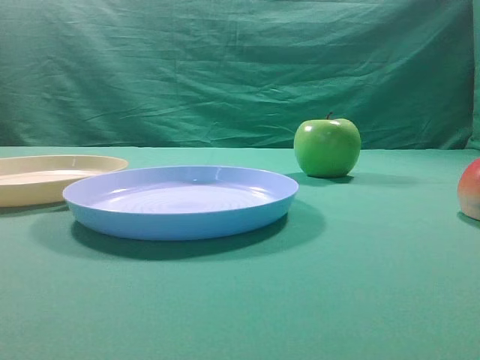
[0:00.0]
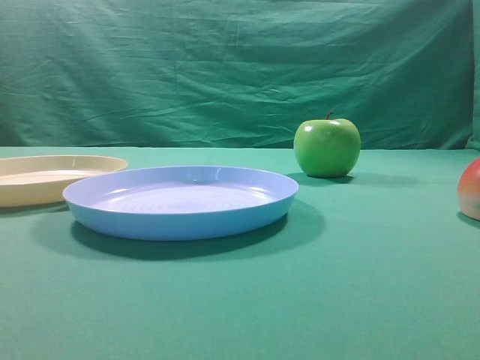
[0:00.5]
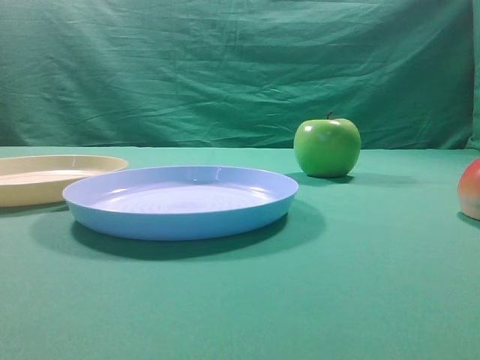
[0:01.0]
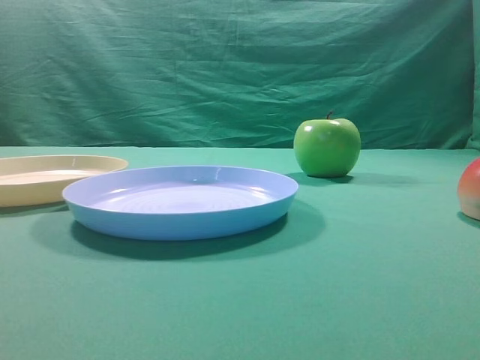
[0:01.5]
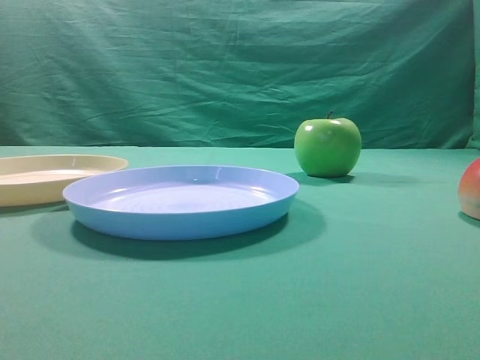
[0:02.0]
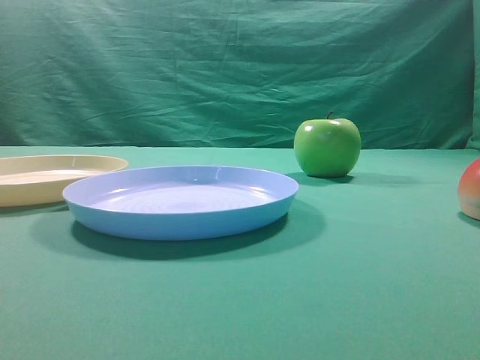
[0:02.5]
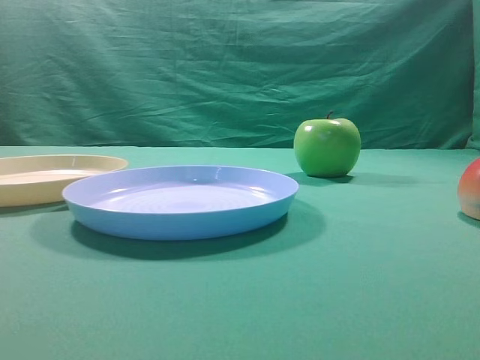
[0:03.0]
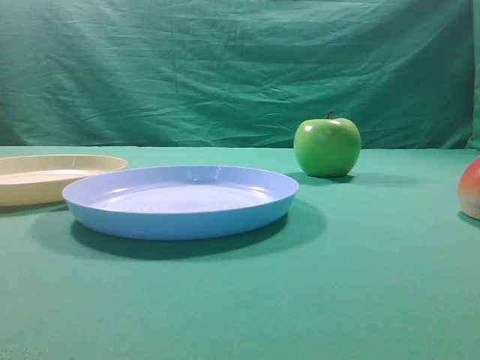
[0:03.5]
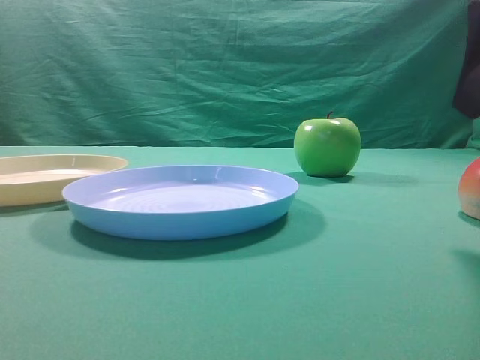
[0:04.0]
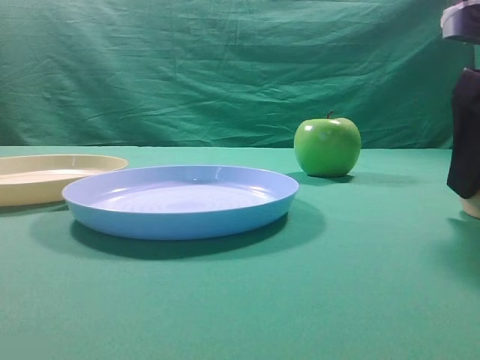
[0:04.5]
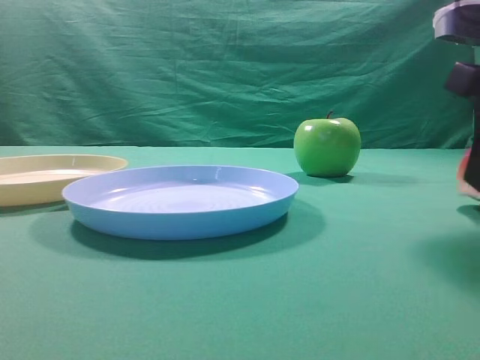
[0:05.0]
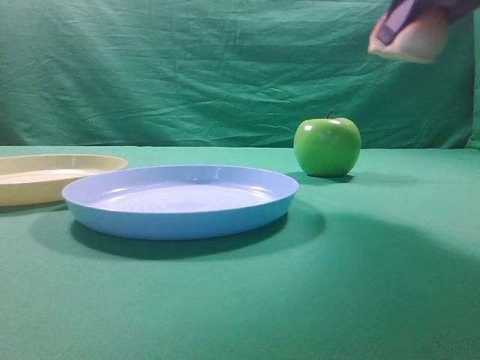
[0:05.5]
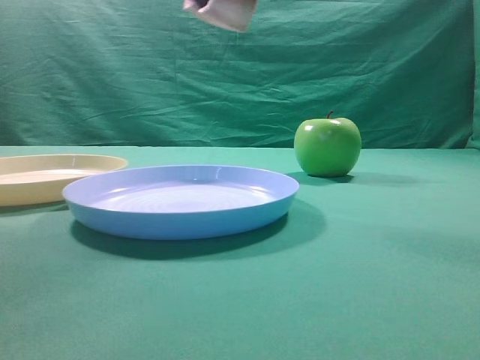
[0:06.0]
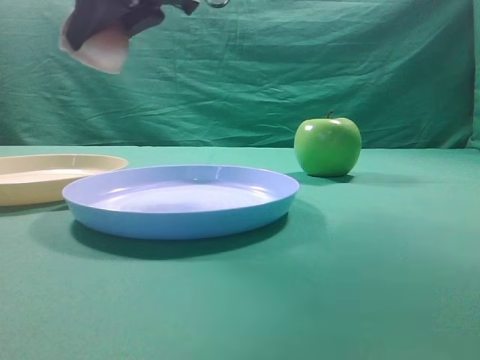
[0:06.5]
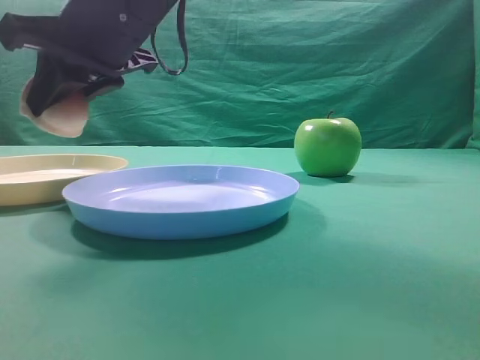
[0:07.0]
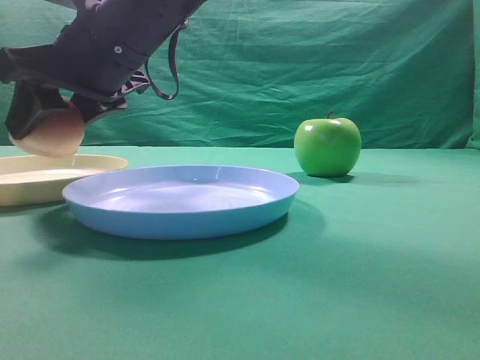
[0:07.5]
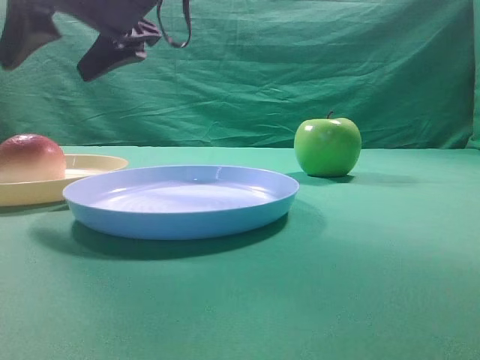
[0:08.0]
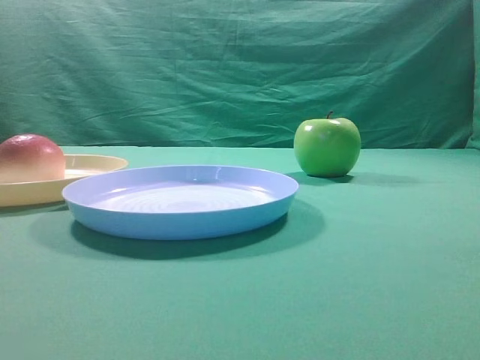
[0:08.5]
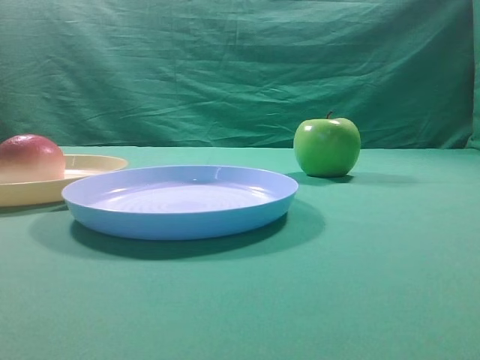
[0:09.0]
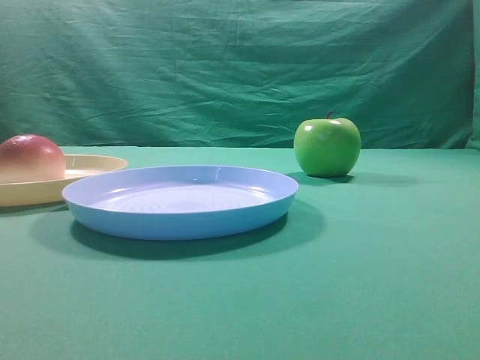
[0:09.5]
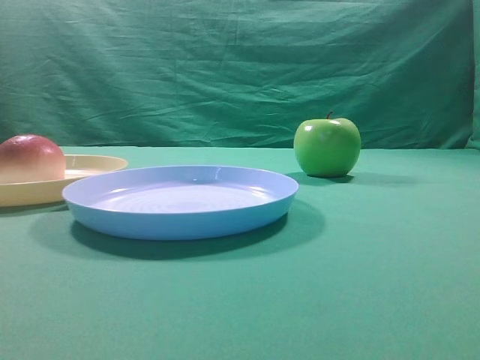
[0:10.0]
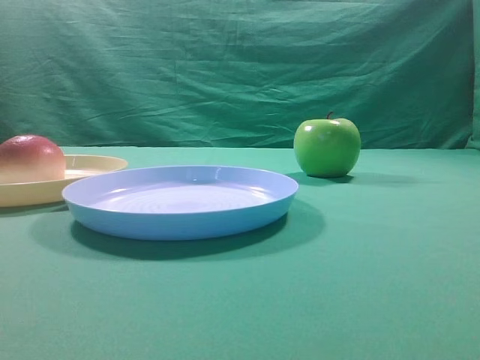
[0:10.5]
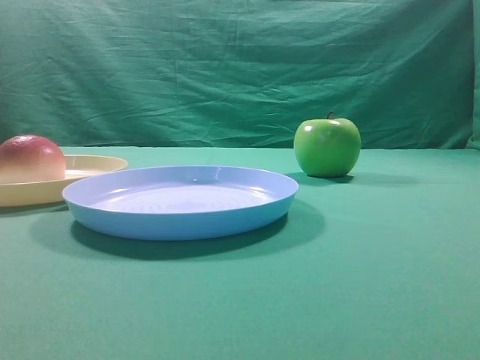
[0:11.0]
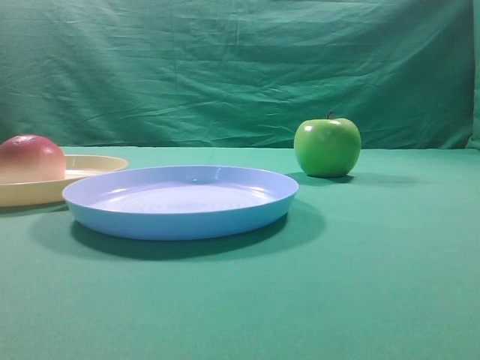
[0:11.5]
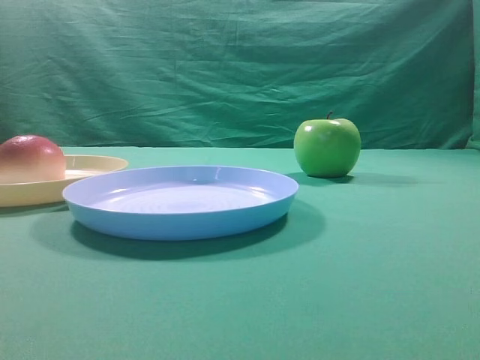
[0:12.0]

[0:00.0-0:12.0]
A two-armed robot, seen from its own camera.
Step, 0:05.5 to 0:07.5: Place the picked object on the yellow plate.

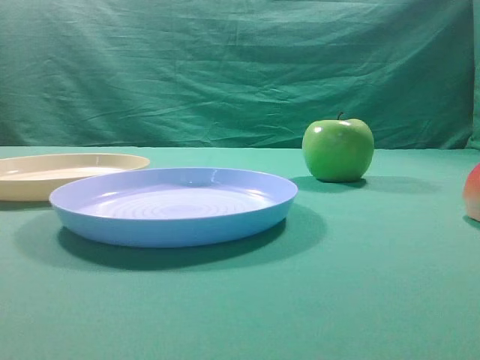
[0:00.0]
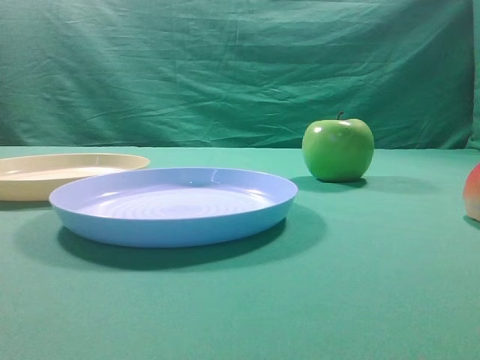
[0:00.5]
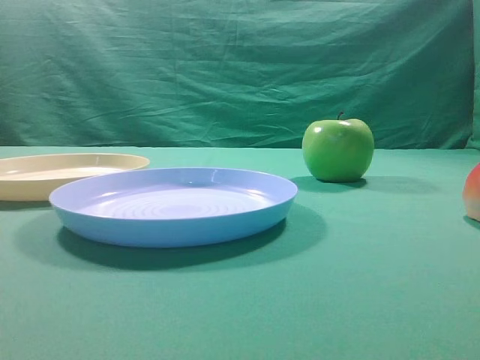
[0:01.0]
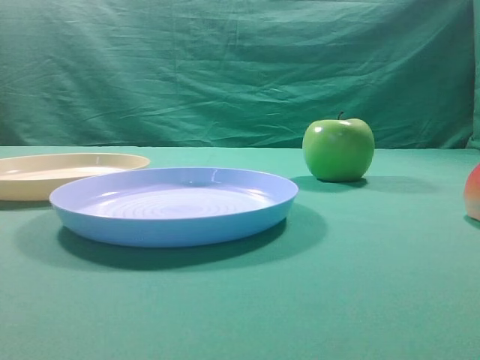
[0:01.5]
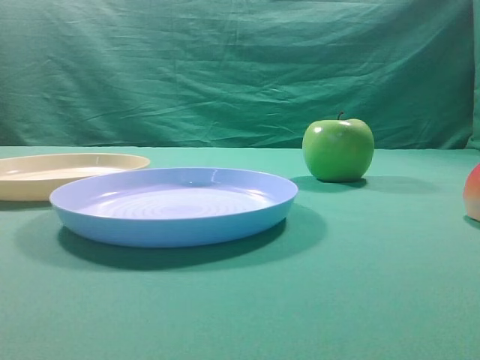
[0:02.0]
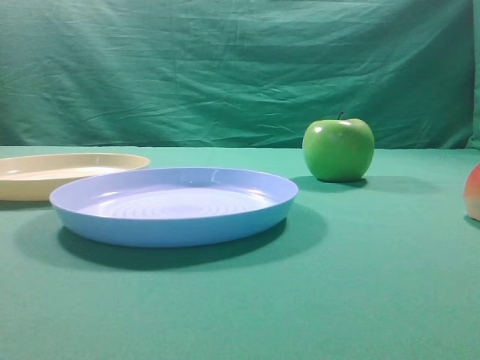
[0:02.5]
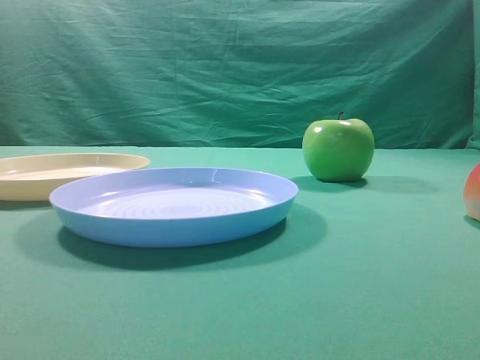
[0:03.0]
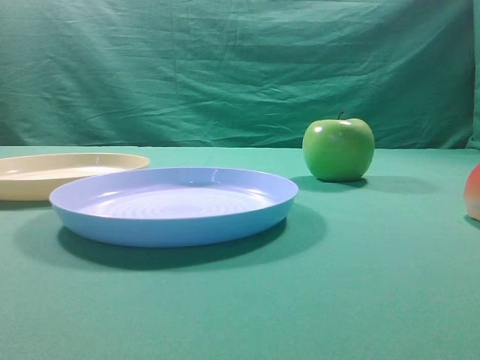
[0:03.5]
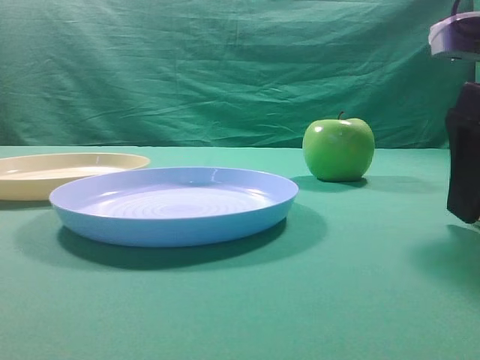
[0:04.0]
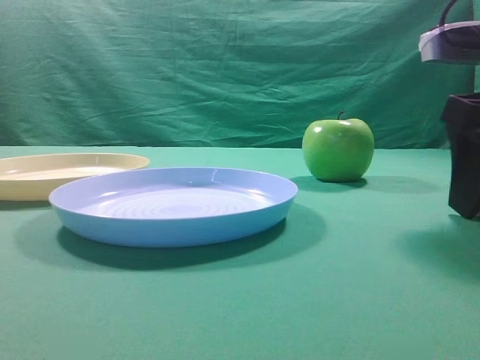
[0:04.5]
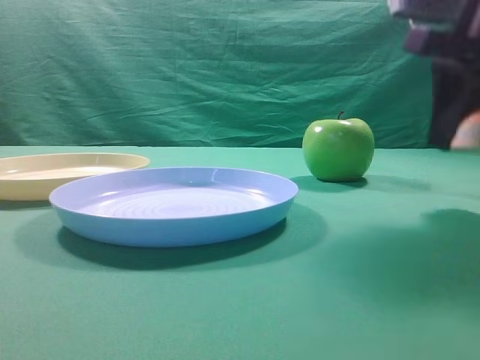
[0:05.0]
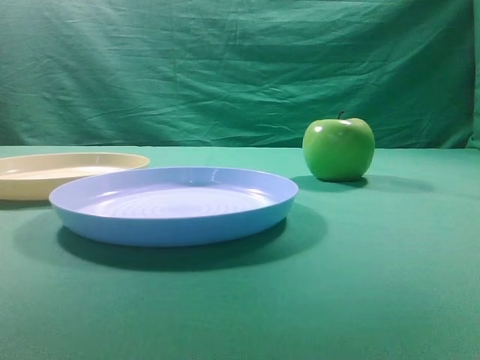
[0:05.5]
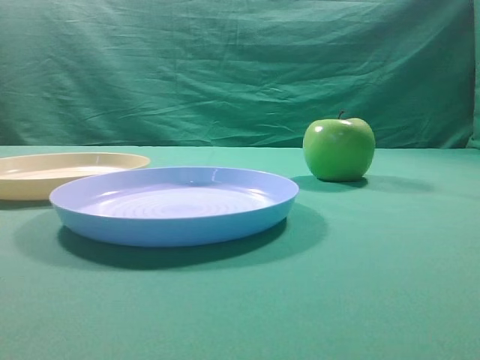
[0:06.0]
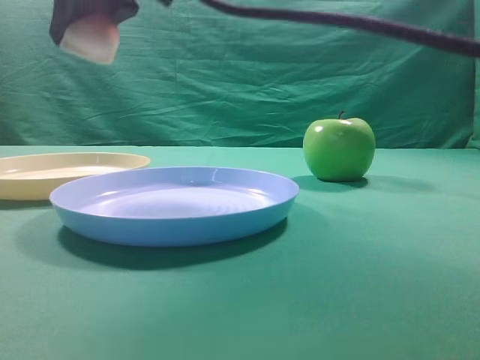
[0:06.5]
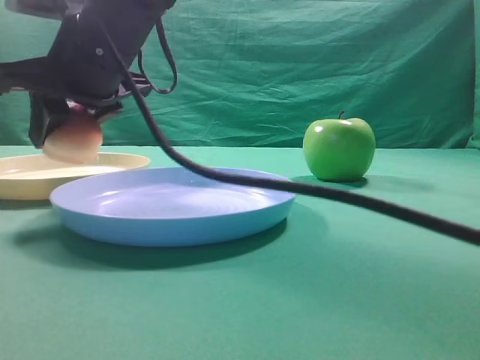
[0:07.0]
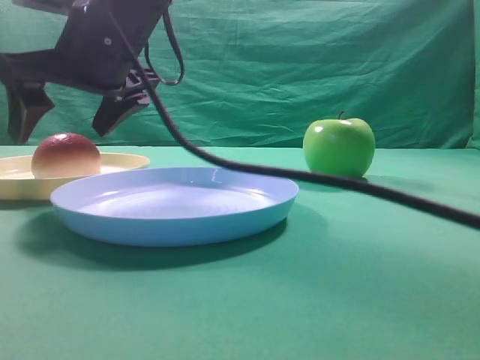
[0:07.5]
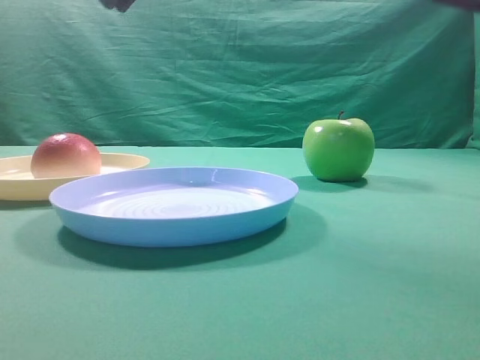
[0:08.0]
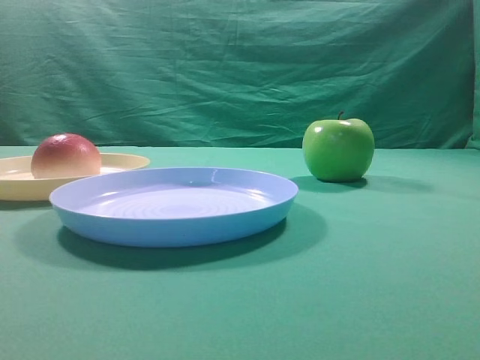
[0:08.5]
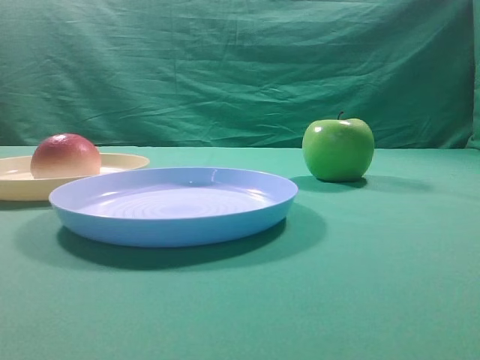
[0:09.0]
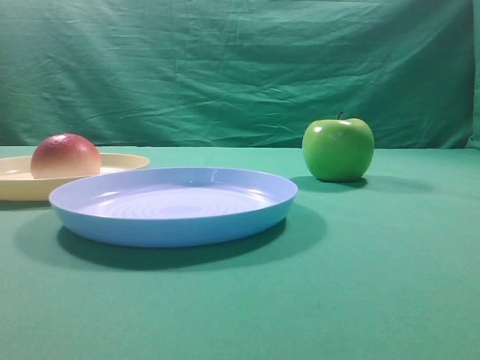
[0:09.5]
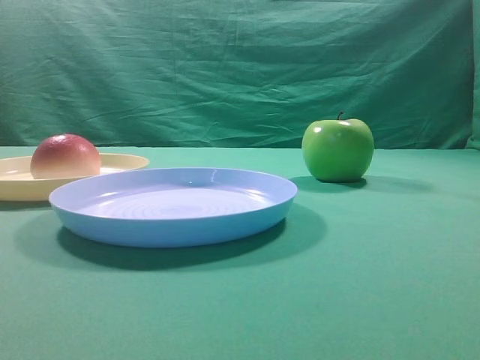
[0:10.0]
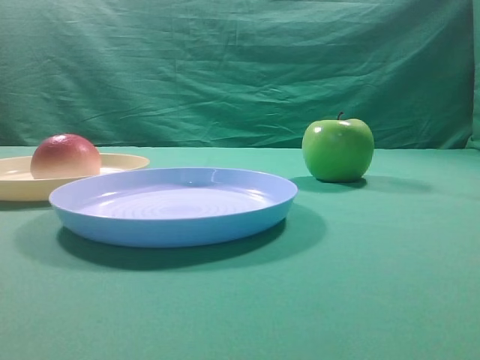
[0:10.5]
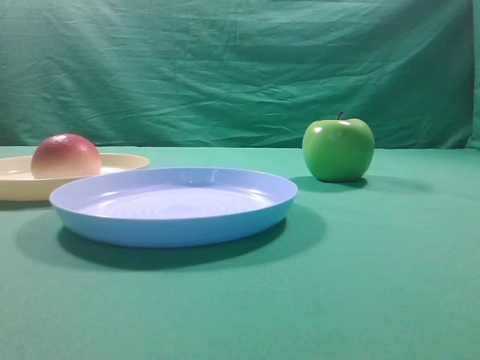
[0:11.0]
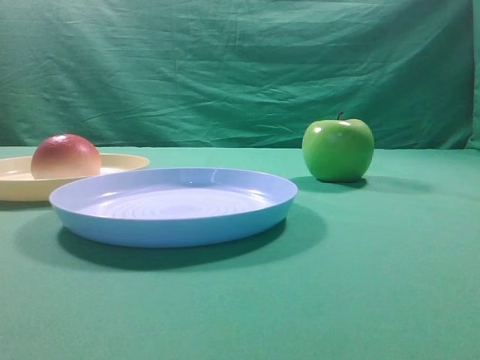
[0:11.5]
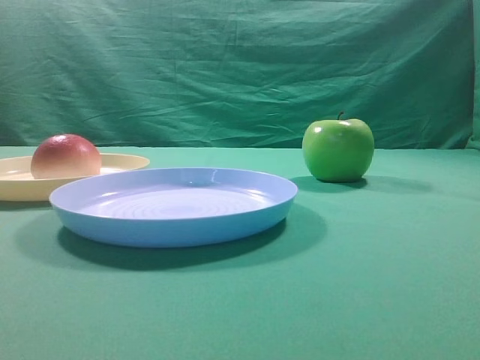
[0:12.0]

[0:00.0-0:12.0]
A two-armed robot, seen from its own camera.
Step, 0:05.0 to 0:07.5: Place the picked object on the yellow plate.
